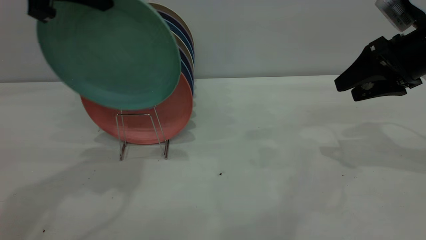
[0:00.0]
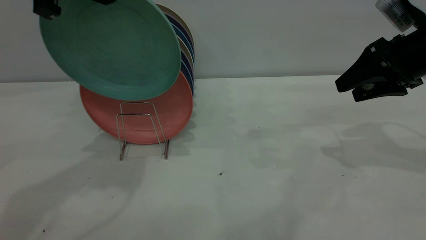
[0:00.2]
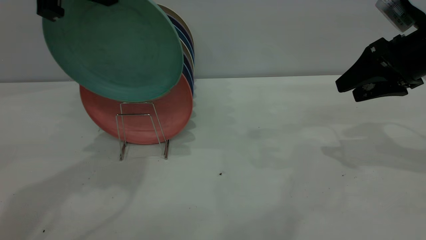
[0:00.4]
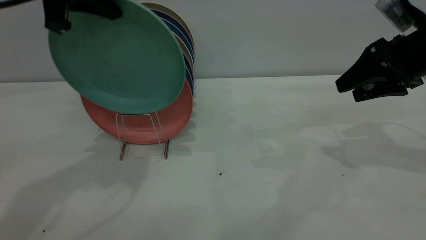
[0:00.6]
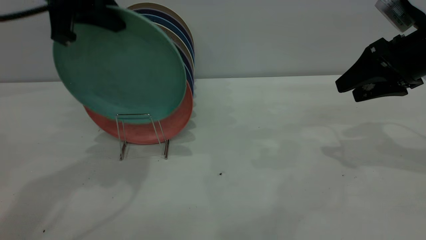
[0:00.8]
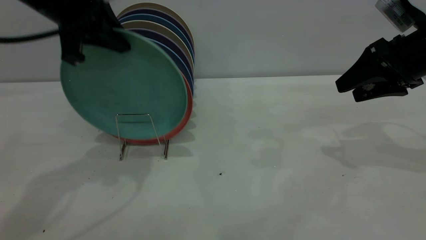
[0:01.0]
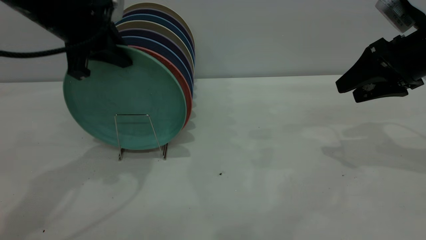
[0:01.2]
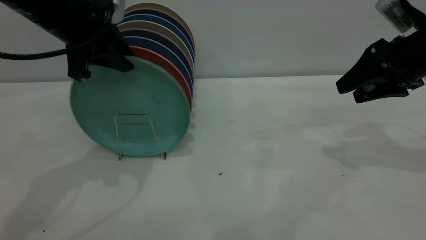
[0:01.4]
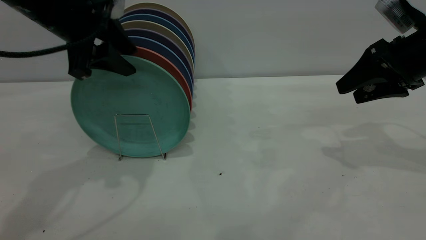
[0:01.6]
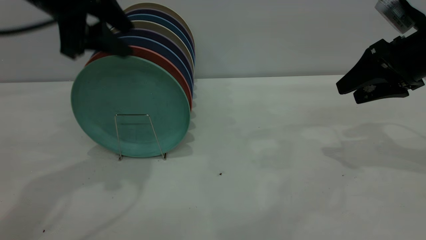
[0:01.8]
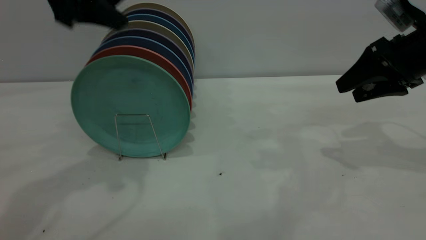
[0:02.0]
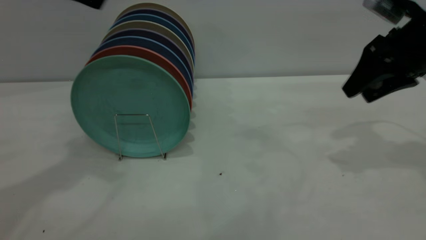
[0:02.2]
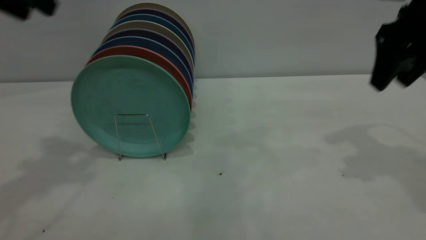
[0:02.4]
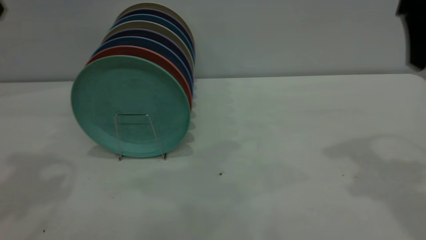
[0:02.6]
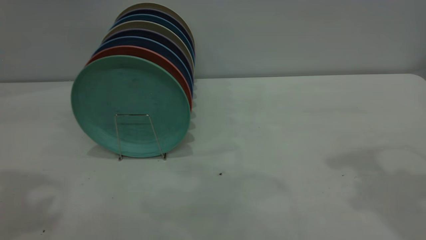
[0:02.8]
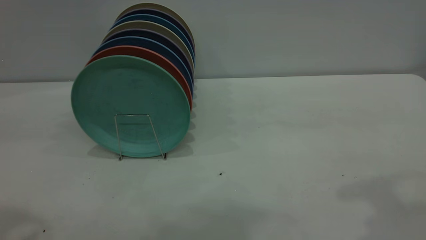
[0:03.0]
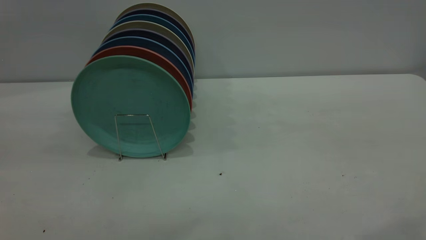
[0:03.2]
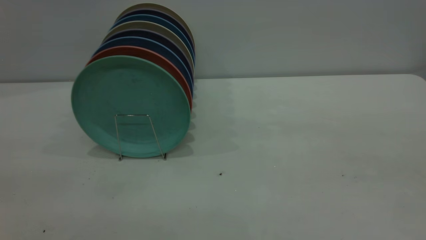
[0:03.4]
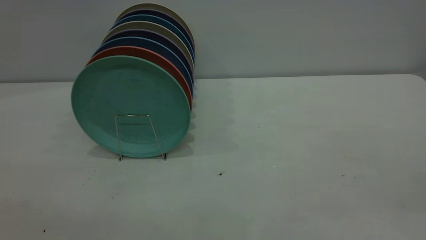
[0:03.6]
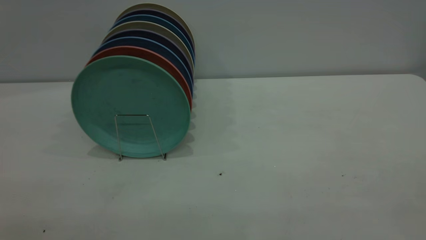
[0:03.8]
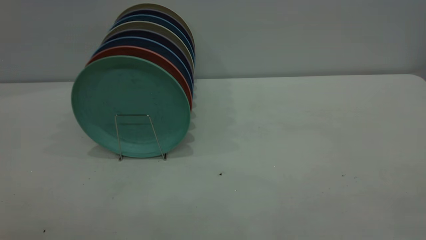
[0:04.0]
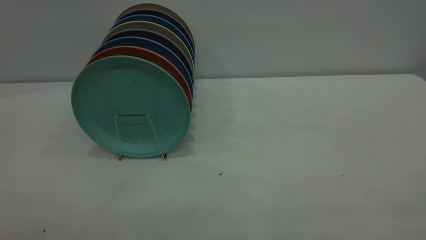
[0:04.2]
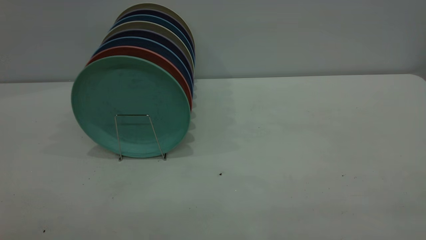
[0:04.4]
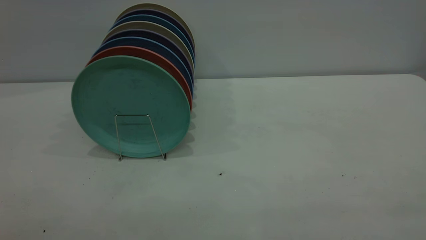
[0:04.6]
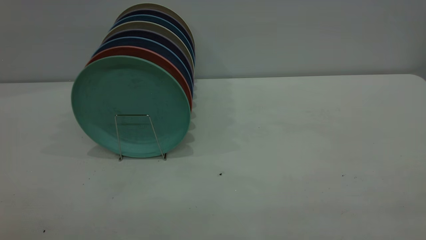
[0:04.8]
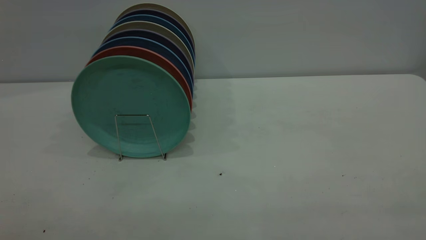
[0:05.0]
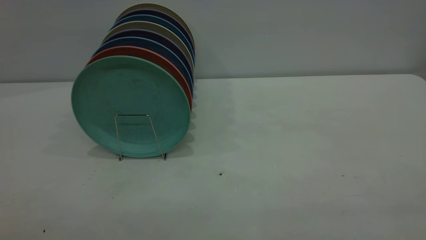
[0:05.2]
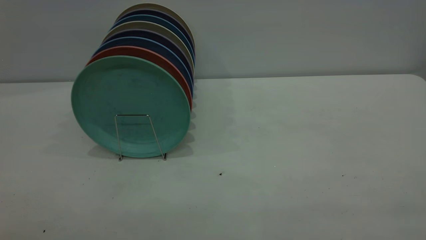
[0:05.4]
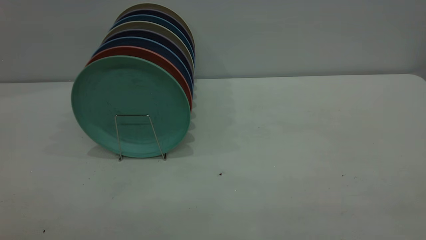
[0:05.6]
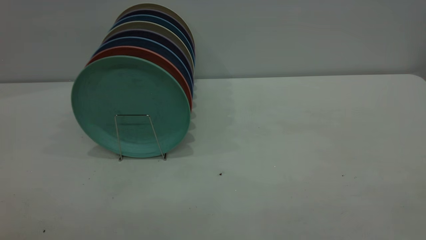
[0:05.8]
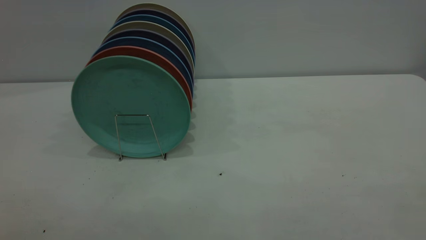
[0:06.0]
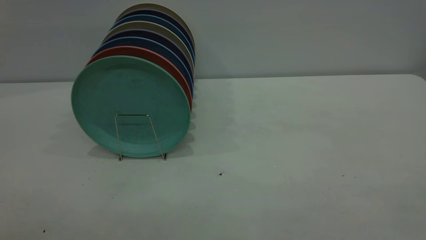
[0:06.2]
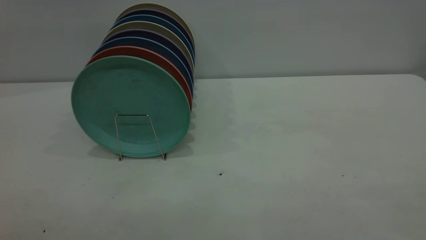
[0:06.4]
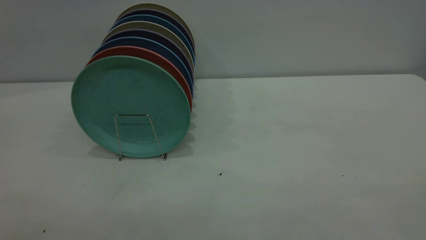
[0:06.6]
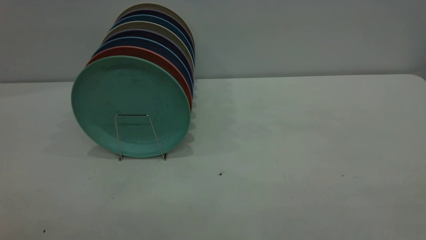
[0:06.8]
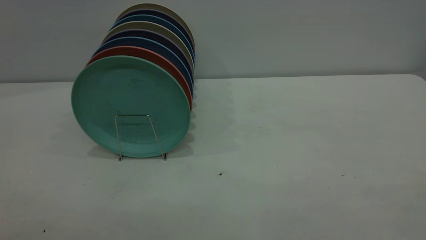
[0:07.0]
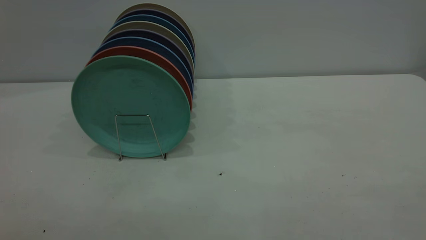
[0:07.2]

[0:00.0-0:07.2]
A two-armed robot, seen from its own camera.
Task of the whole recording: the right gripper grasp the green plate, the right gripper pass the green plate to the left gripper, and the left gripper place the green plate on the plate rack.
Step, 0:00.0 to 0:01.8: Place the plate on the shelf.
0:00.0 to 0:01.4: The left gripper moves downward, roughly 10 cm, and opens its fingers.
0:01.4 to 0:02.8: The right gripper is displaced upward and backward by about 25 cm. The left gripper travels upward, backward and to the left by approximately 20 cm, and opens its fingers.

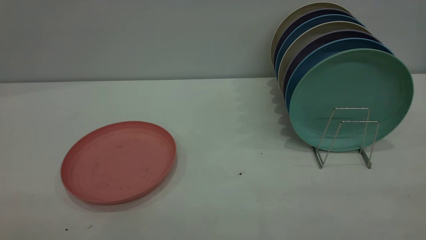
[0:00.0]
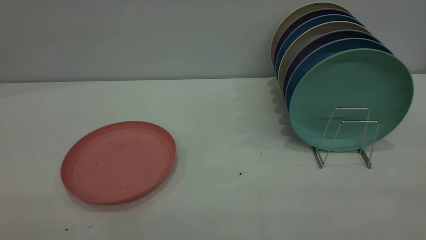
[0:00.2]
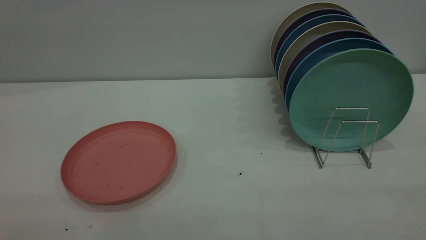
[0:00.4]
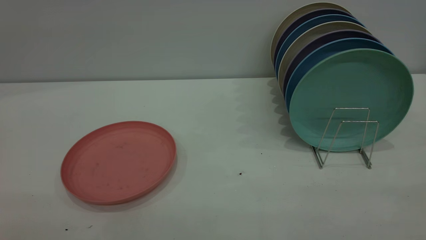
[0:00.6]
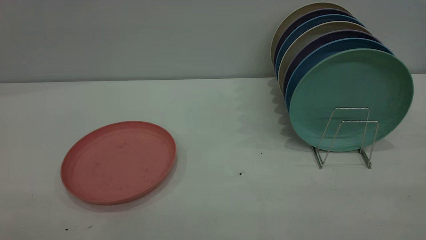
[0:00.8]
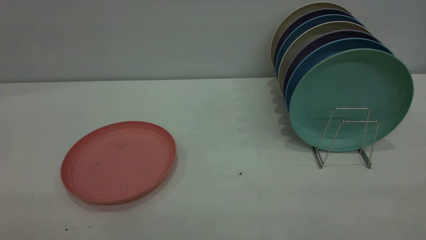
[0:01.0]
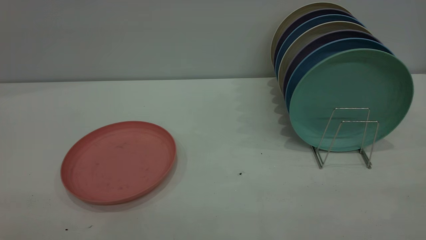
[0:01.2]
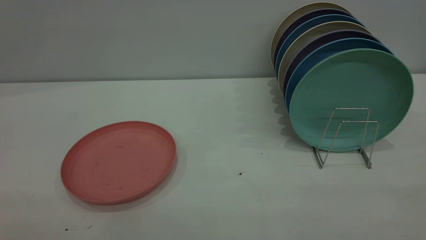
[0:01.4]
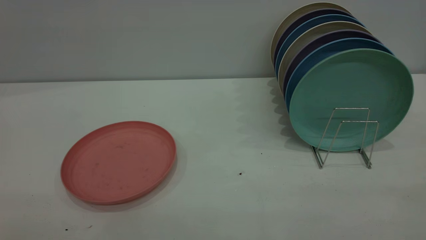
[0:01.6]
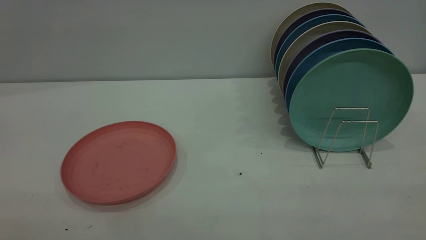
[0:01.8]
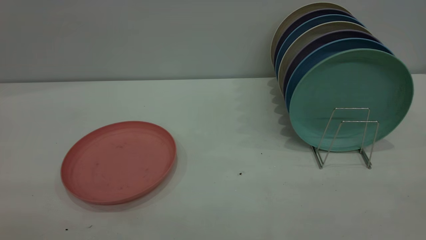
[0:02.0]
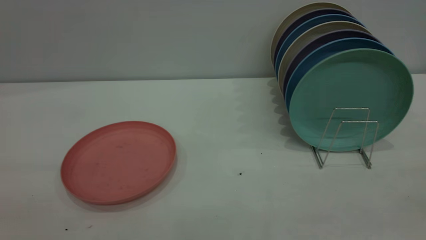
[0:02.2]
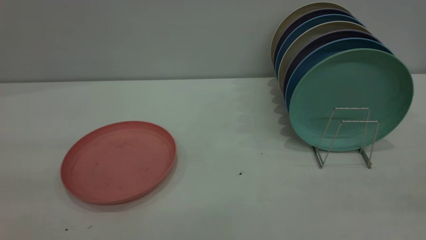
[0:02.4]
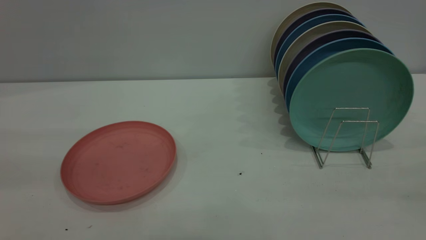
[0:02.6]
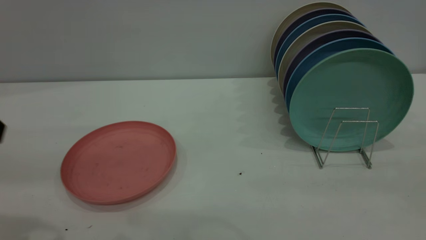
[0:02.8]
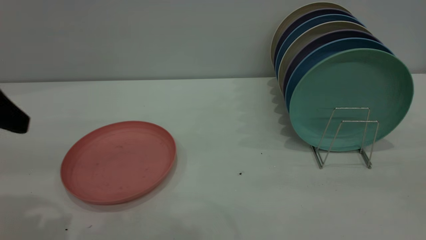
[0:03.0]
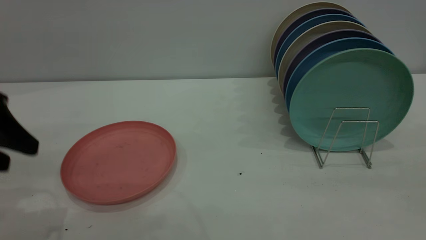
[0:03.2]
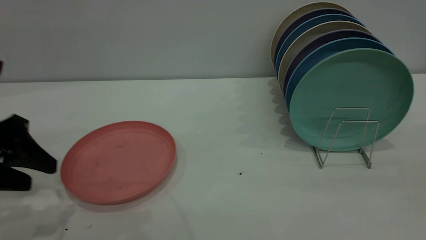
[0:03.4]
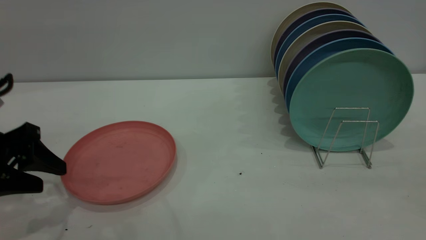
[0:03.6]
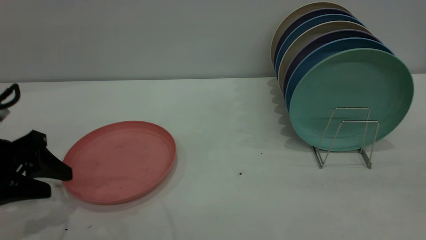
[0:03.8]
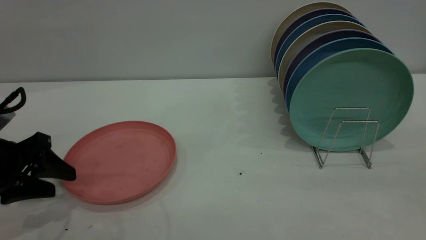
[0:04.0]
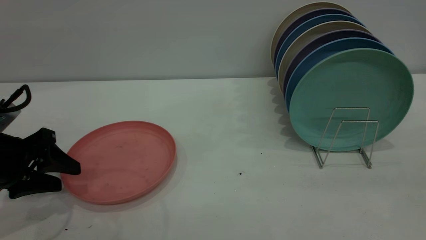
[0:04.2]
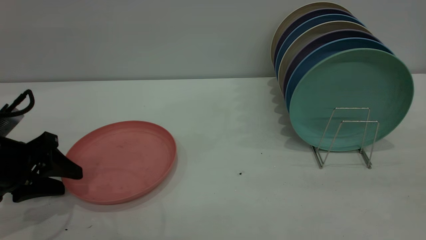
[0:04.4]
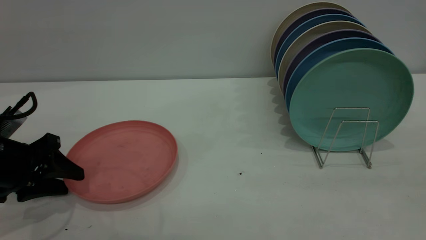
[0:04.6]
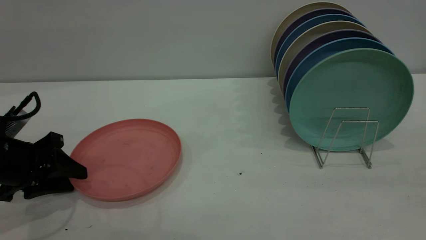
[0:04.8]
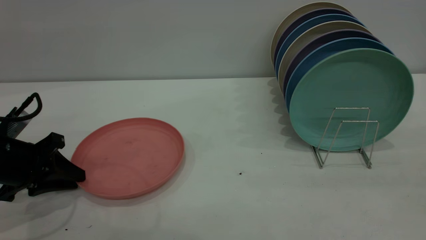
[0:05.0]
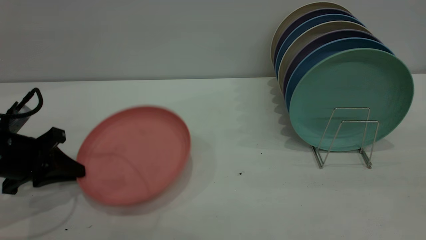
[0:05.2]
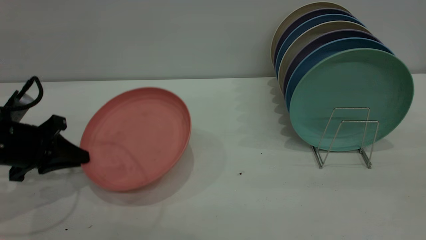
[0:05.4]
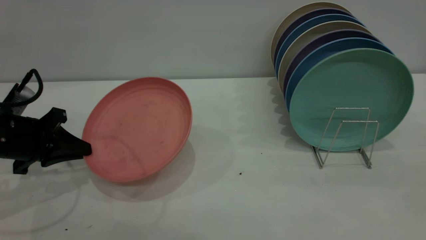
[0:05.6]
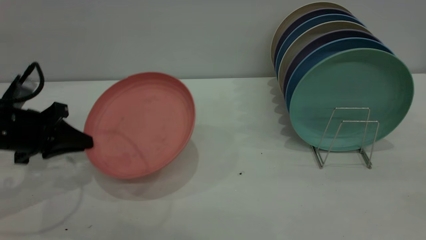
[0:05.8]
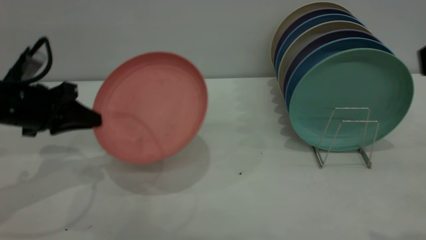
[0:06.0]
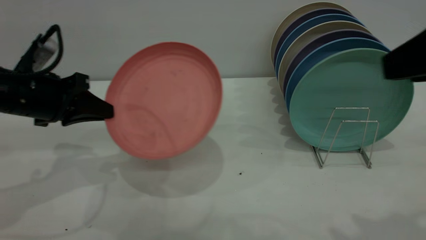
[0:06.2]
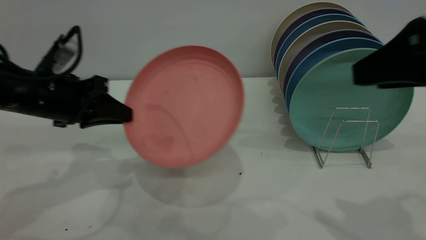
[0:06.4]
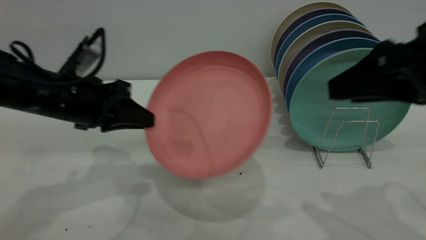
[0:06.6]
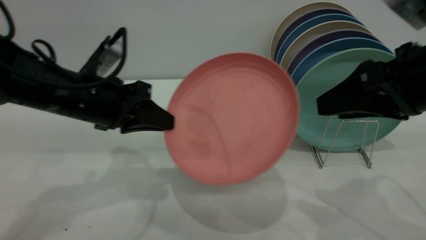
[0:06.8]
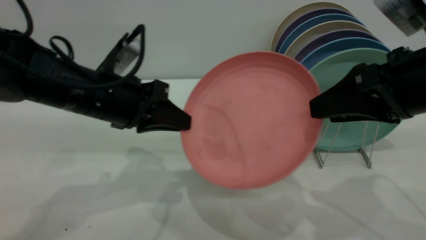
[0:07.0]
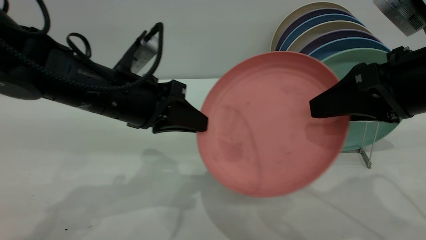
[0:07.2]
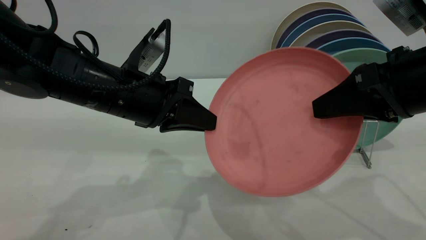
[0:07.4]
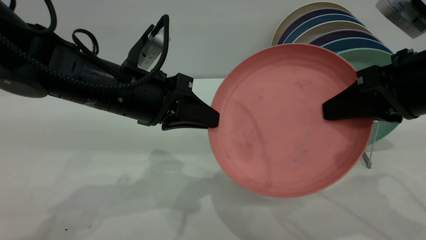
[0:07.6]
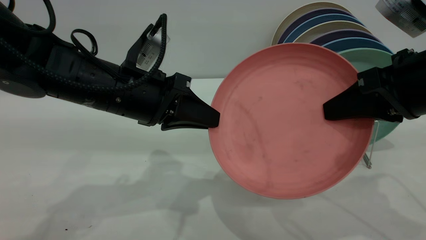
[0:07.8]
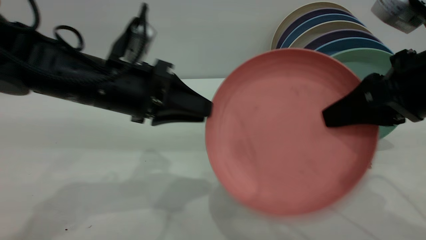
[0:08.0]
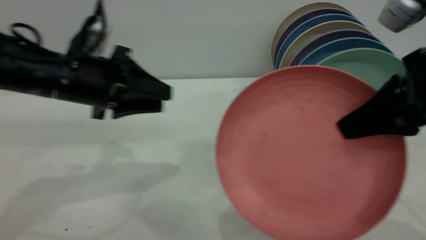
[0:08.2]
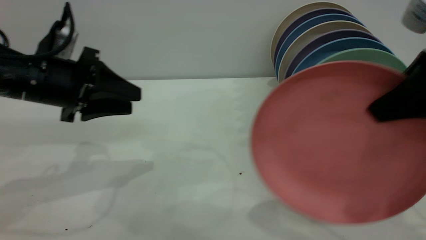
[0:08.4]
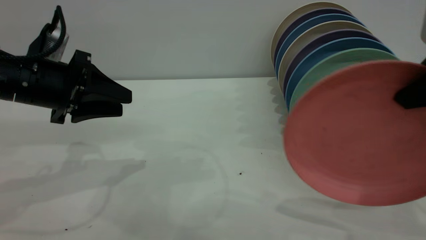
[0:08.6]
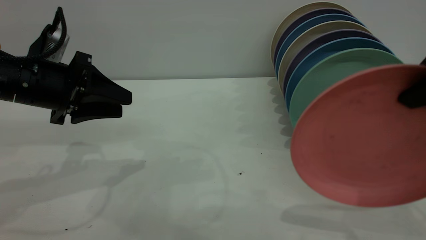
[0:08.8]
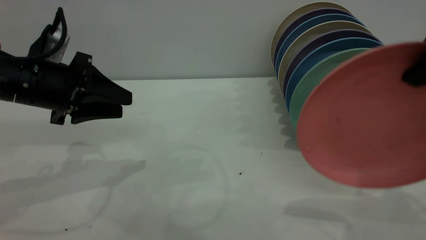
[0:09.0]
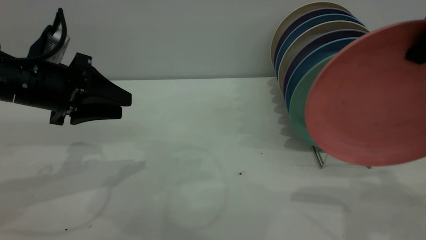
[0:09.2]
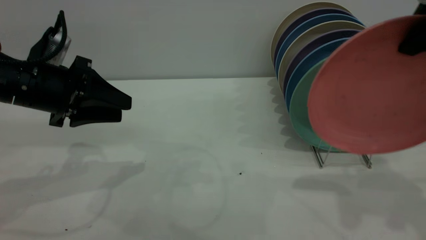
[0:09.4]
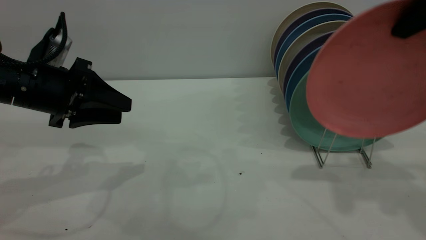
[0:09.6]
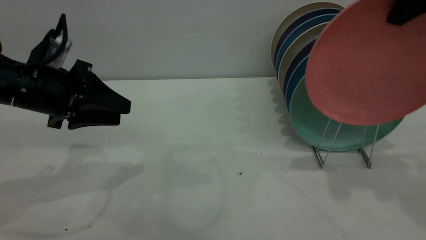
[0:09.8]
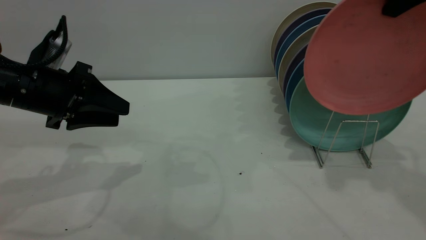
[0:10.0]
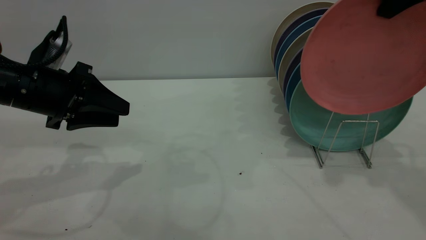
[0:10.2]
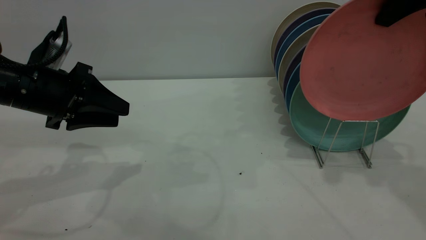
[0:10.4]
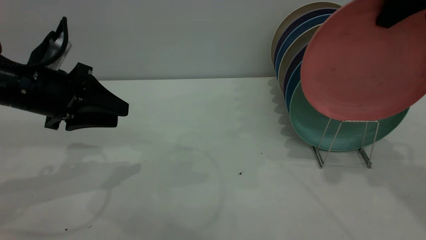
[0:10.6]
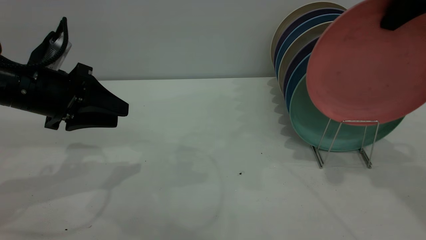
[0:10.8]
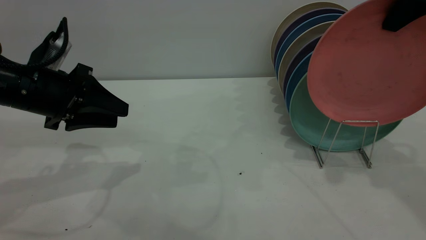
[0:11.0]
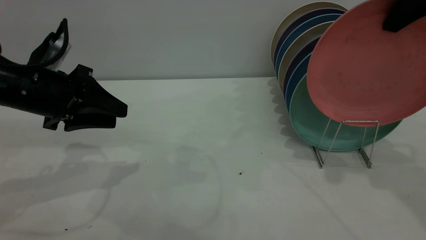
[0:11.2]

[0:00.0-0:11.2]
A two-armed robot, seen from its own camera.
Task of the whole recording: the left gripper grasp the pink plate, the left gripper pass the pink plate to the right gripper, and the right gripper place the pink plate on the plate rack.
Step, 0:00.0 to 0:05.6: Pick up the plate with the left gripper.
Step, 0:05.8 to 0:08.0: Pass the plate from the left gripper to the right gripper.
0:00.0 to 0:01.6: Neither gripper changes place.
0:01.6 to 0:03.2: The left gripper travels forward and downward by some 30 cm.
0:03.2 to 0:04.8: The left gripper travels downward by about 10 cm.
0:04.8 to 0:06.4: The right gripper moves forward and downward, about 15 cm, while the left gripper moves to the right, upward and forward, about 10 cm, and closes.
0:06.4 to 0:08.0: The left gripper goes approximately 10 cm to the right, and opens. Meanwhile the right gripper shifts by approximately 5 cm, and closes its fingers.
0:08.0 to 0:09.6: The left gripper goes approximately 10 cm to the left. Meanwhile the right gripper heads upward and forward, covering approximately 15 cm.
0:09.6 to 0:11.2: The grippers move only a little.
